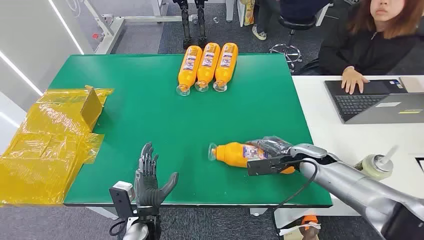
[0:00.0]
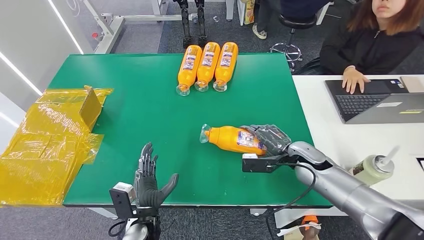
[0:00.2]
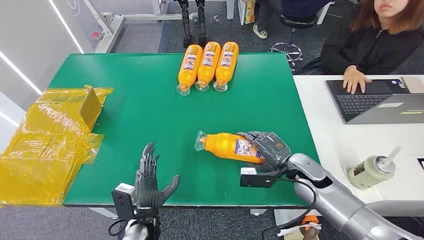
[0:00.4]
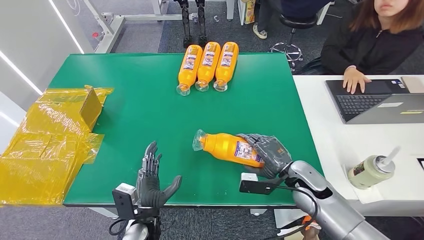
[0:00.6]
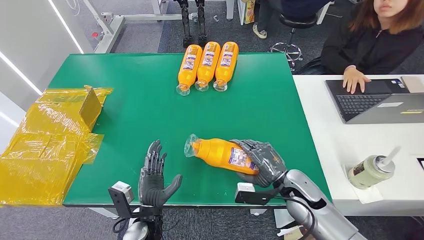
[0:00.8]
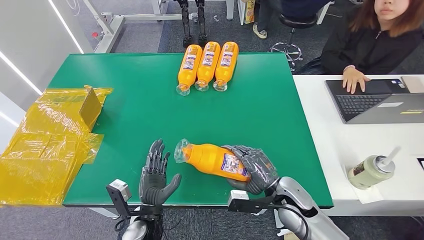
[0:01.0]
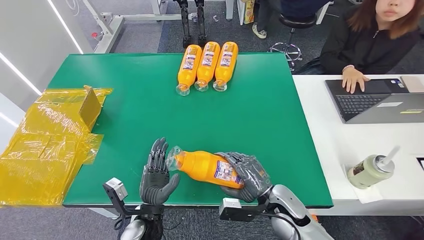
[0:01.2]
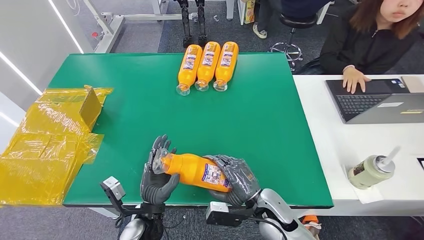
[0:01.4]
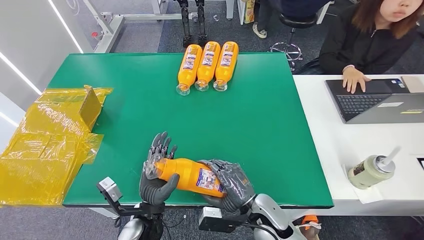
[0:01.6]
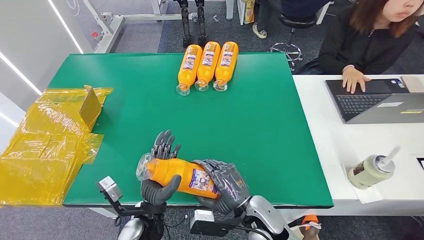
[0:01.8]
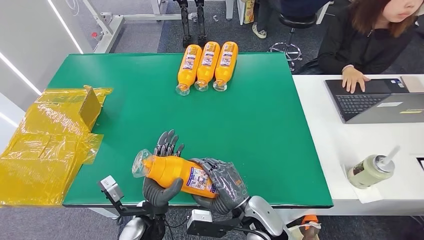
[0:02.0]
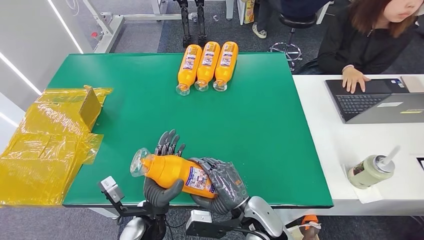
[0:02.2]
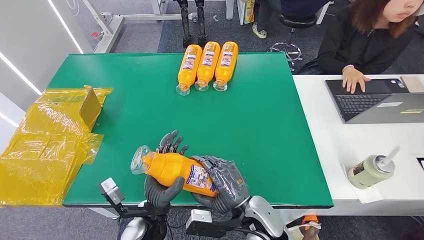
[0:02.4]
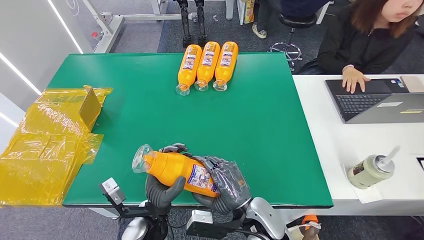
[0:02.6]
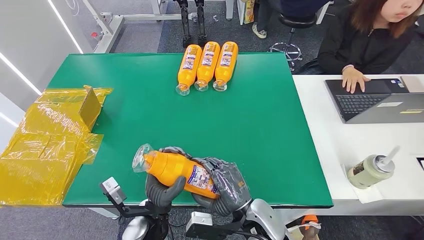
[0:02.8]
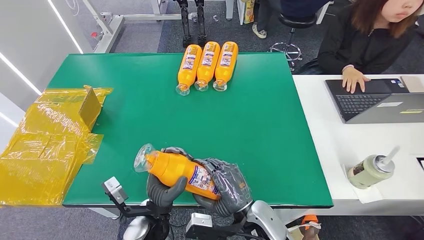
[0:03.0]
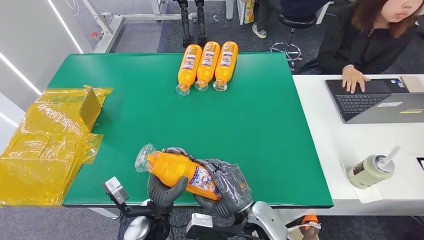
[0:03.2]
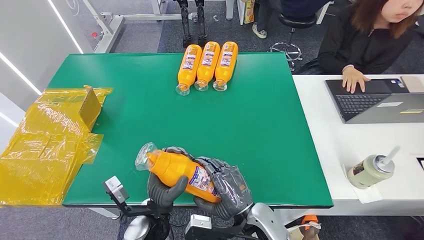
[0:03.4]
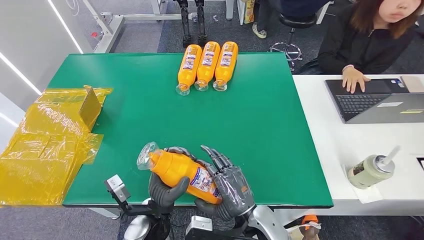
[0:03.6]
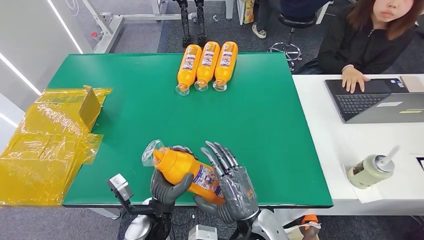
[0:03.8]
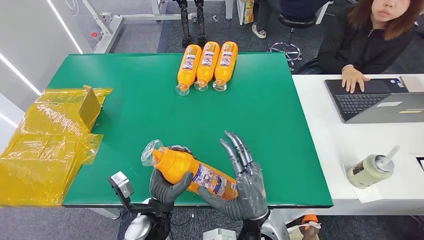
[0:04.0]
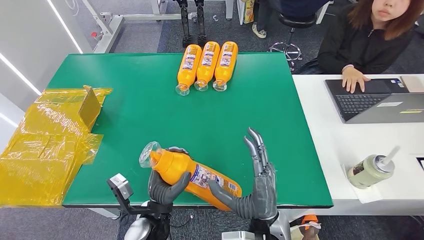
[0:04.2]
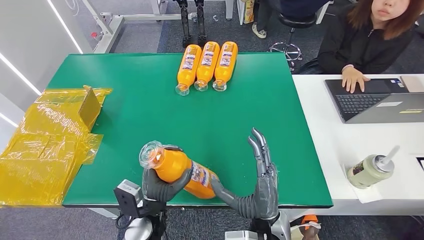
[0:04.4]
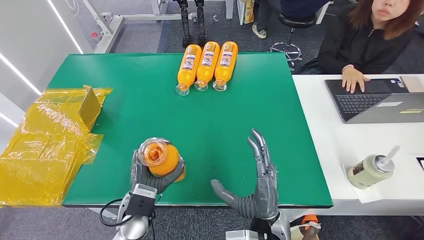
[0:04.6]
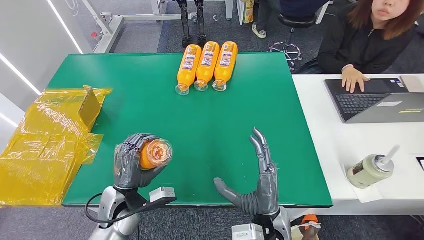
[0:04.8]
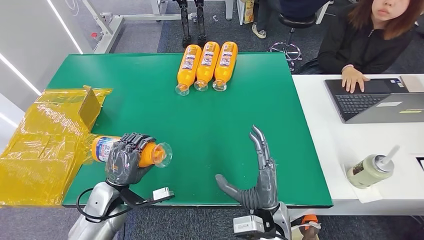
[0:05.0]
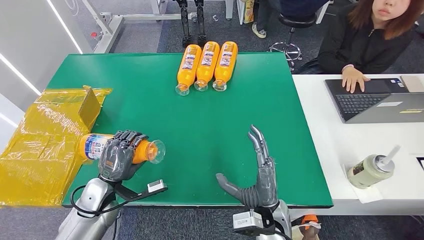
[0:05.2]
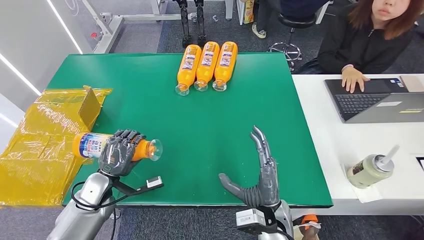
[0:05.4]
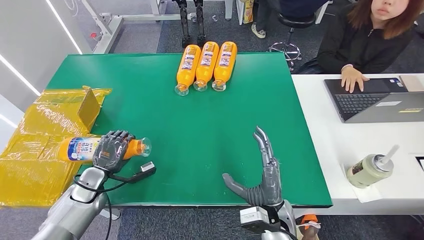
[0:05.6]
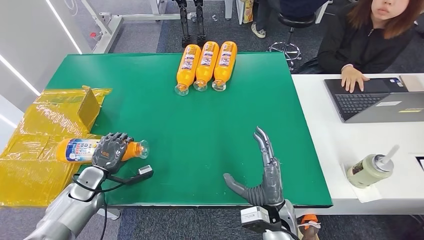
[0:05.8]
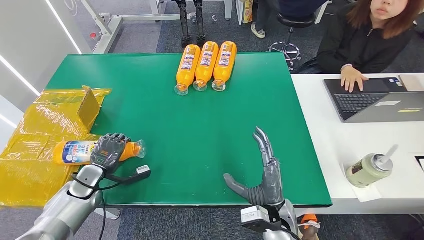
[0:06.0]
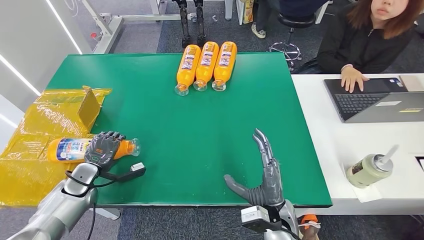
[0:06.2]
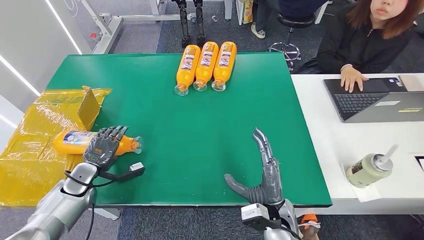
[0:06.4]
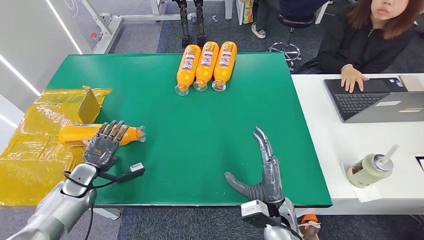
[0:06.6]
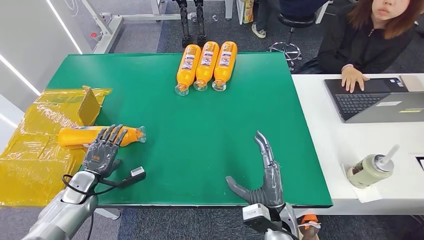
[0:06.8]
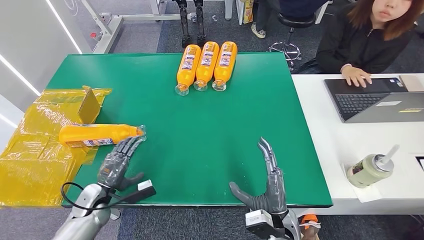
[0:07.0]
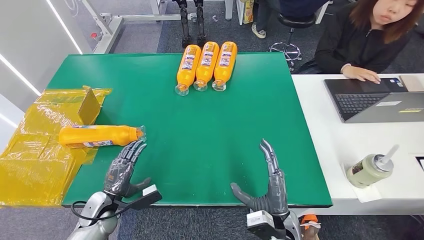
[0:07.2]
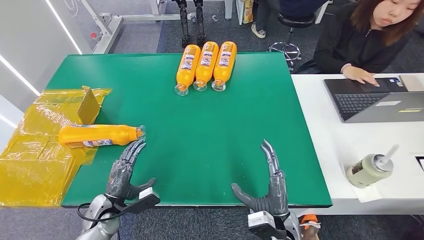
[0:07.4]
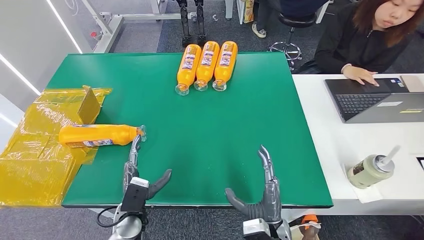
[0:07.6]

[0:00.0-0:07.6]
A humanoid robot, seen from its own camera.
Step, 0:00.0 to 0:02.8: Pick up the bottle from the table.
Step, 0:03.0 to 0:07.6: Turn the bottle to the front side.
0:01.6 to 0:03.0: The right hand changes place by some 5 cm.
0:03.0 to 0:04.6: The left hand shifts by roughly 5 cm.
0:04.6 to 0:06.0: The left hand shifts about 25 cm to the left. Meanwhile the right hand ends up about 5 cm from where it was.
0:06.0 to 0:07.6: The left hand goes some 20 cm to the right and backward. The right hand moves some 5 cm.

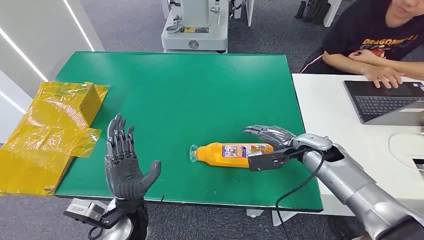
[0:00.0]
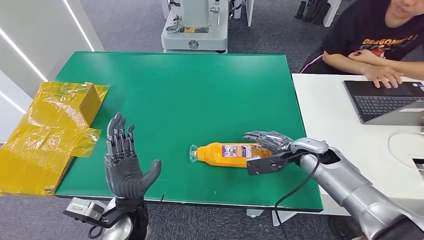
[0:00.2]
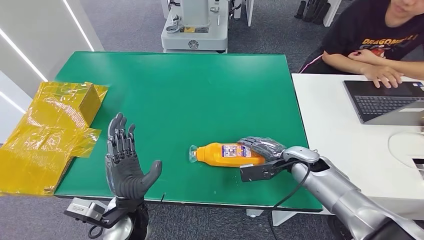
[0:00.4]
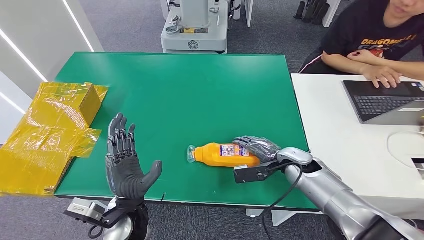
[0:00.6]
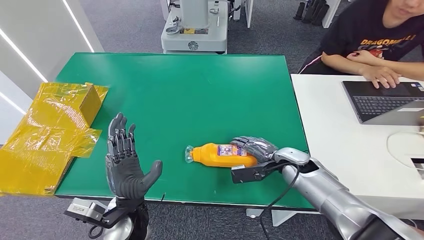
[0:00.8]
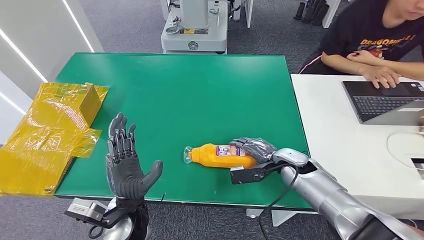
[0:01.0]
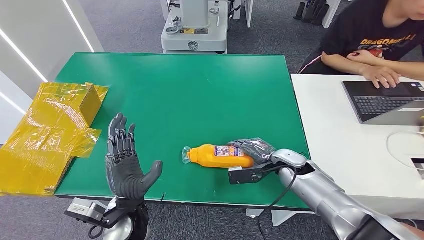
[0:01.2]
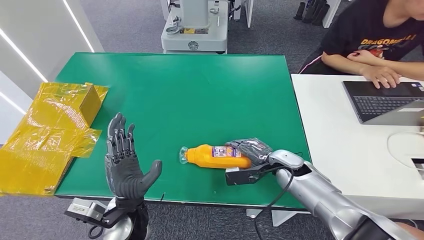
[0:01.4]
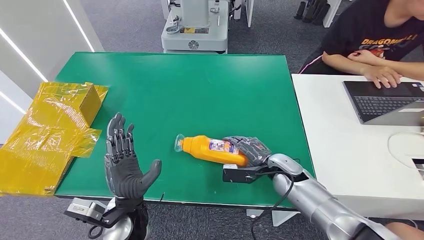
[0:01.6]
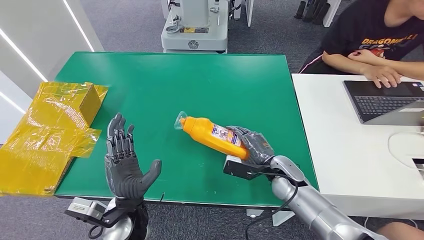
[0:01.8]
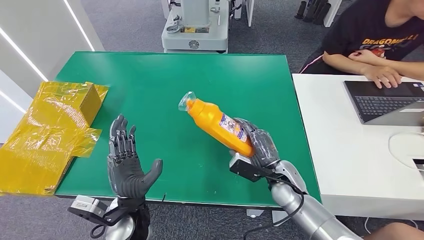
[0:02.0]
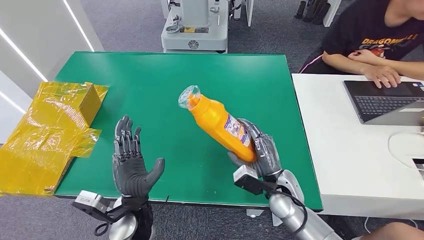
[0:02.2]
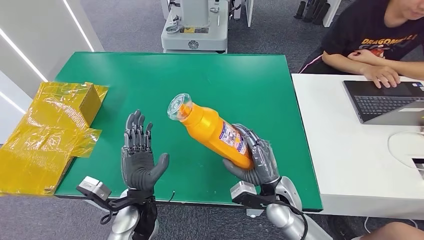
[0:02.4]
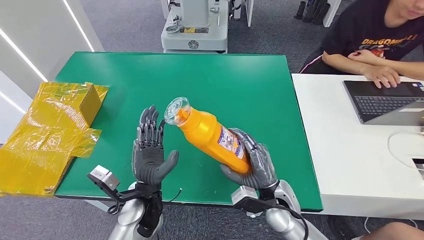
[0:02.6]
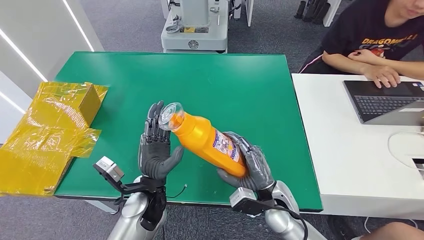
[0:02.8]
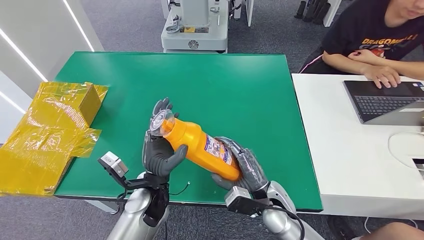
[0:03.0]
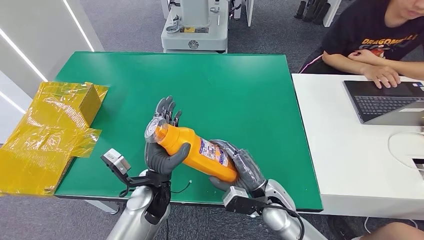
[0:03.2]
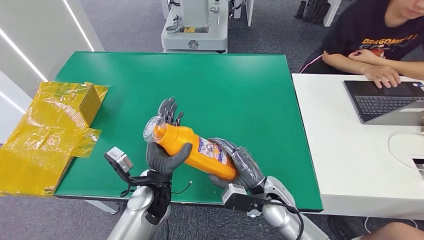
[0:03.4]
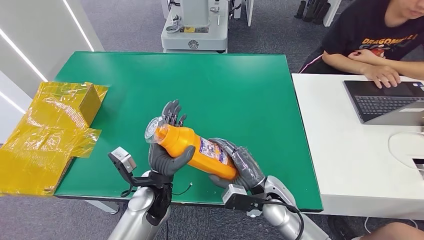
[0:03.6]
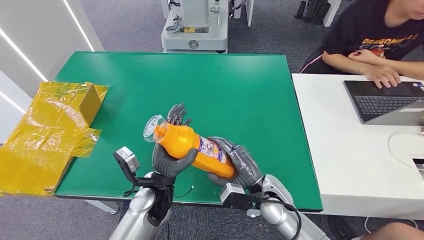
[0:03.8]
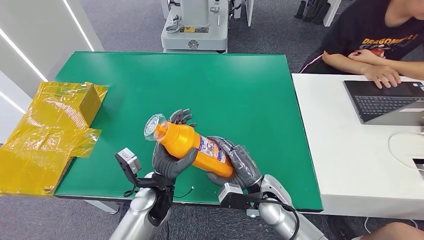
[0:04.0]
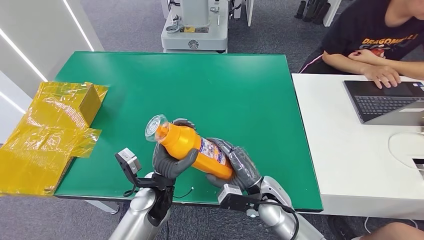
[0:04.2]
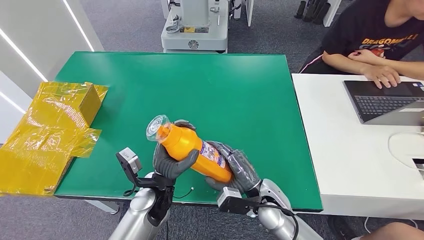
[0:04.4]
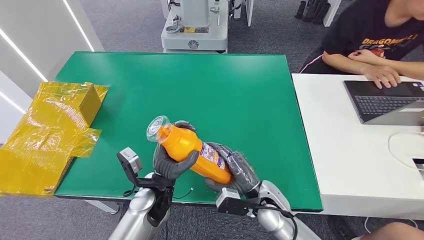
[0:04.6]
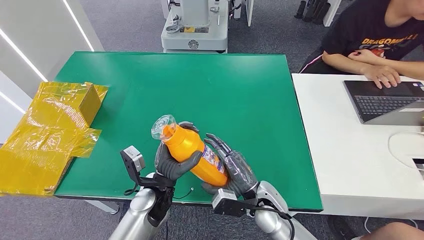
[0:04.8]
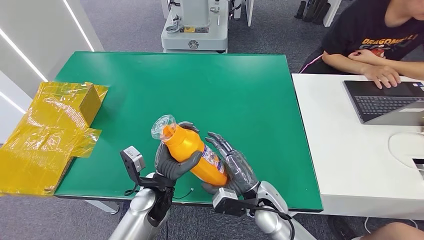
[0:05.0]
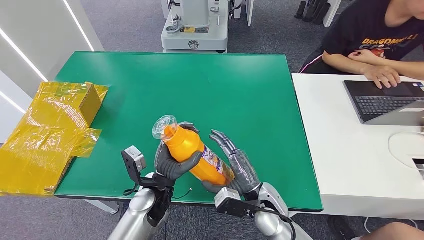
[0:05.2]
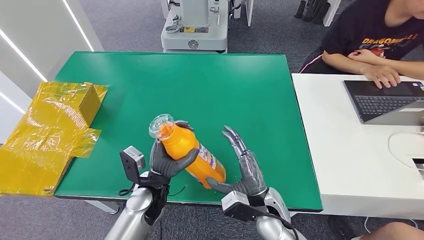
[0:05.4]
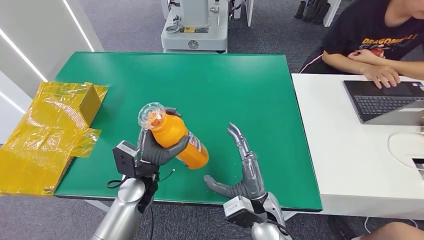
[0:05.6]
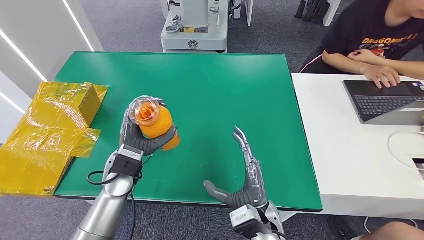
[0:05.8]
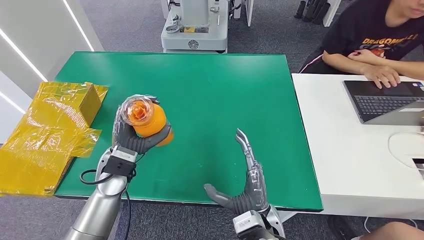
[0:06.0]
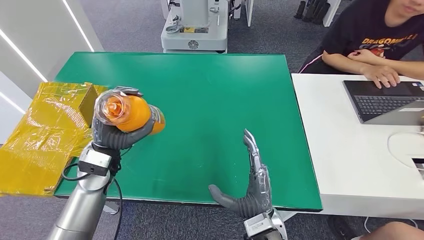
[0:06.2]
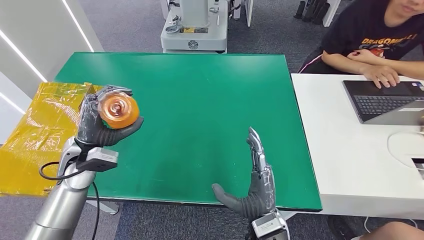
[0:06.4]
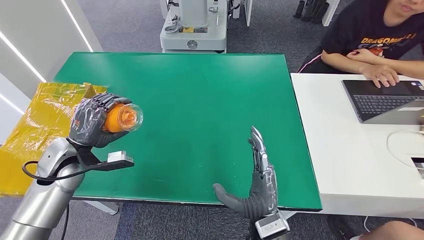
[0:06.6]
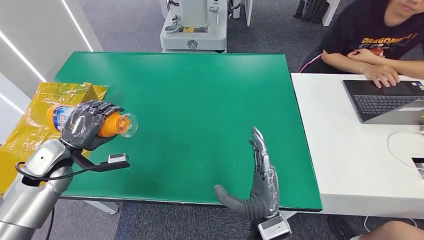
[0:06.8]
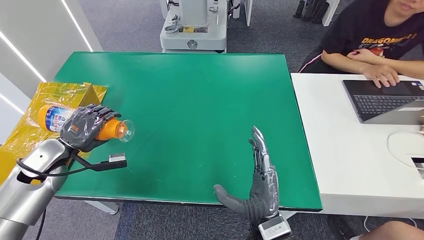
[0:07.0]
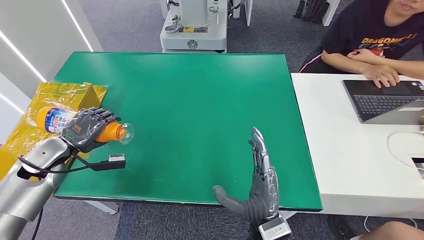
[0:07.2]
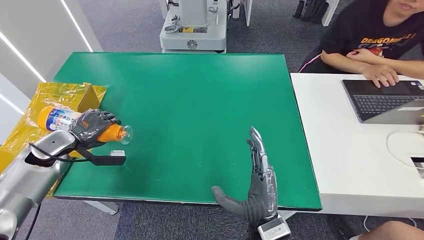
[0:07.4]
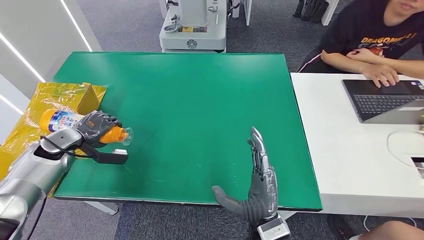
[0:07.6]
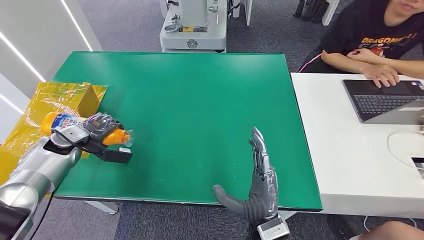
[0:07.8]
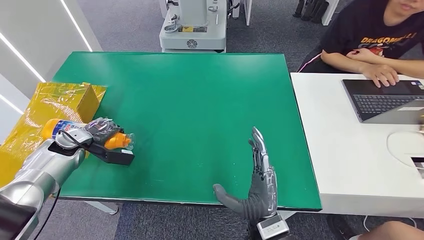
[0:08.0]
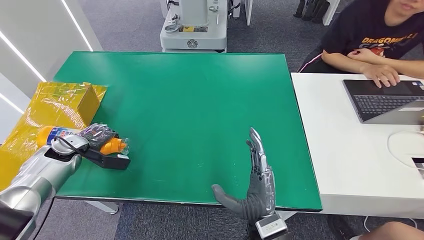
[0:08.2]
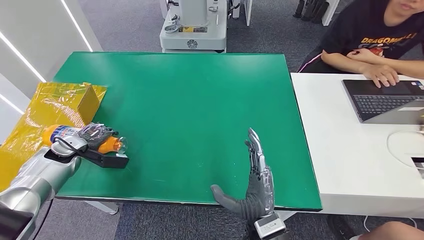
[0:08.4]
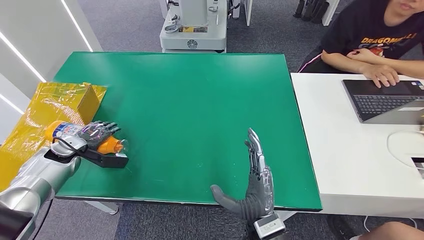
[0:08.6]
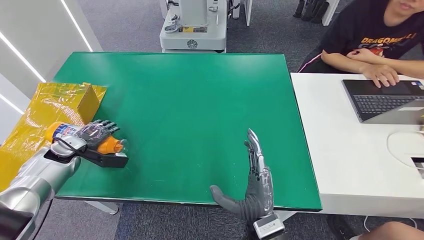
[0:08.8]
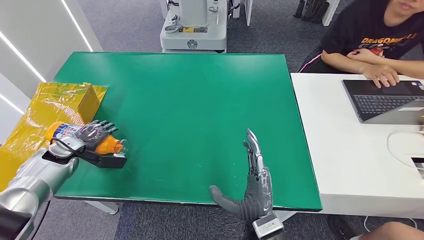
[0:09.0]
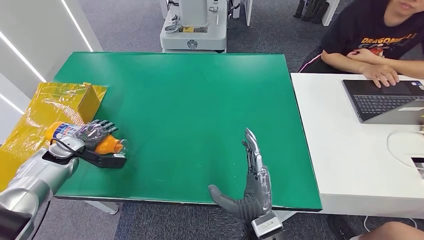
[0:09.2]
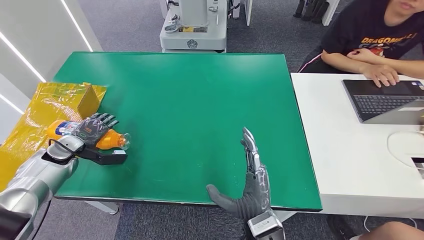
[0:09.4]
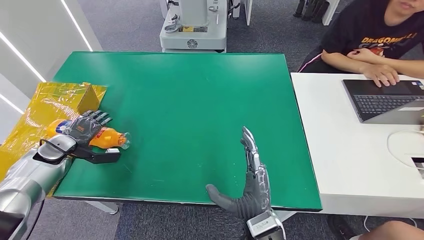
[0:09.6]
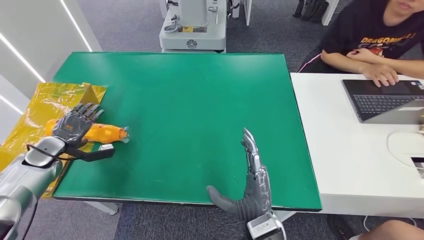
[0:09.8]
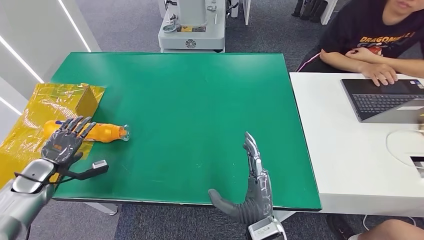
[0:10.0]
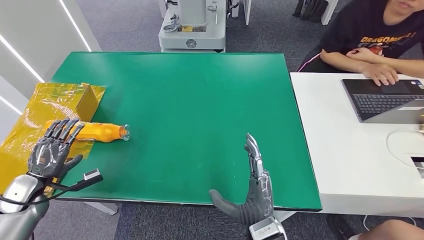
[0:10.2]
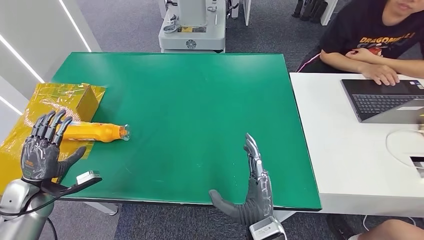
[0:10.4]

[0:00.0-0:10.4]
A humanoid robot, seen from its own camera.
Step, 0:00.0 to 0:03.8: Pick up the bottle from the table.
Step, 0:04.0 to 0:10.4: Turn the bottle to the front side.
0:01.4 to 0:03.0: The right hand heads backward and to the left, covering roughly 10 cm, while the left hand travels forward by about 5 cm.
0:03.0 to 0:04.4: The hands make only small movements.
0:04.4 to 0:06.0: The left hand travels to the left and upward by some 10 cm; the right hand heads backward, covering approximately 5 cm.
0:06.0 to 0:07.4: The left hand is displaced to the left by roughly 20 cm.
0:09.0 to 0:10.4: The left hand goes approximately 10 cm backward.
